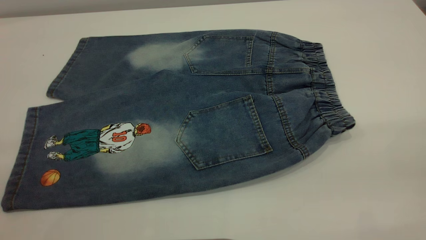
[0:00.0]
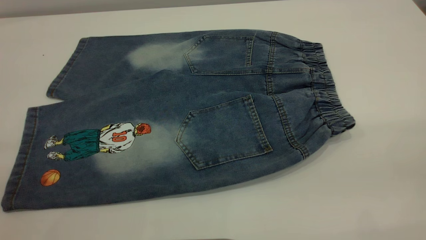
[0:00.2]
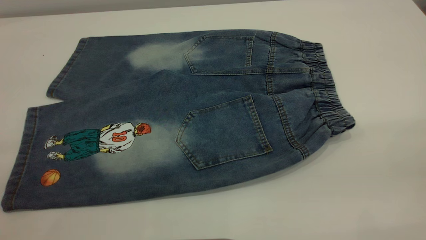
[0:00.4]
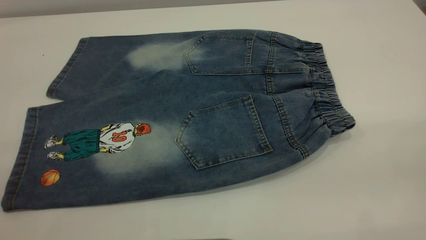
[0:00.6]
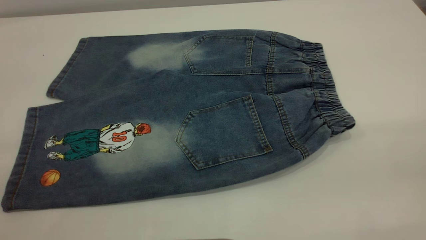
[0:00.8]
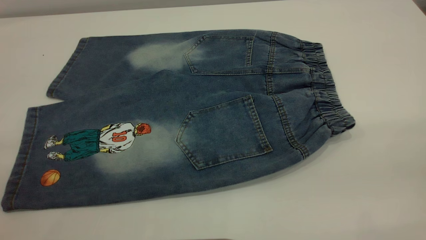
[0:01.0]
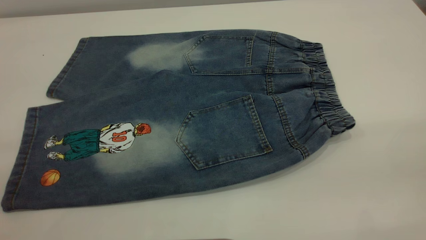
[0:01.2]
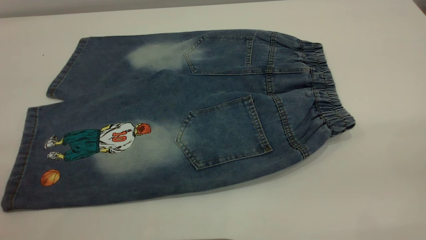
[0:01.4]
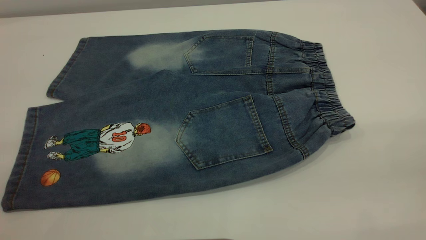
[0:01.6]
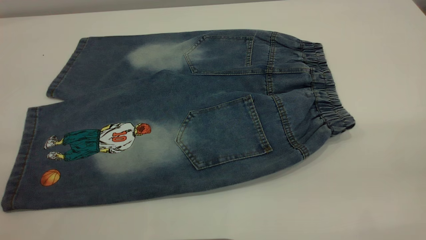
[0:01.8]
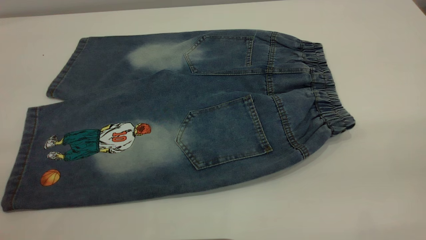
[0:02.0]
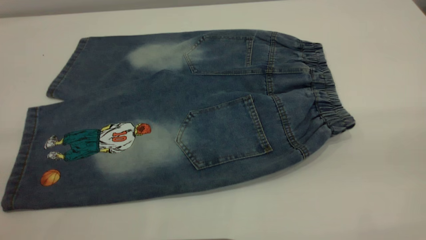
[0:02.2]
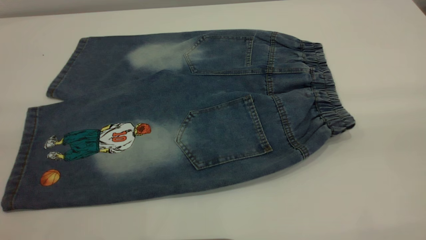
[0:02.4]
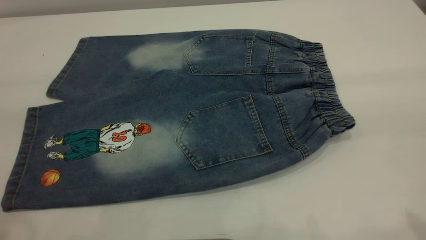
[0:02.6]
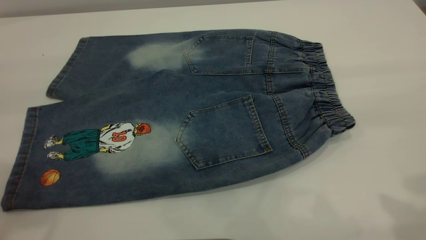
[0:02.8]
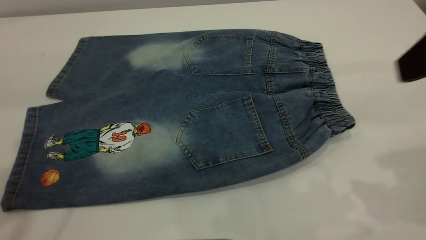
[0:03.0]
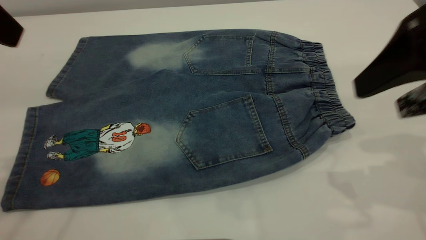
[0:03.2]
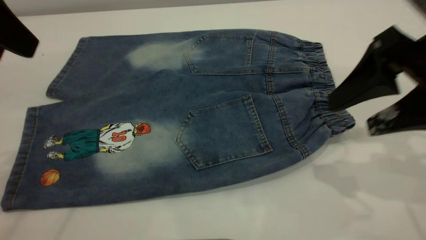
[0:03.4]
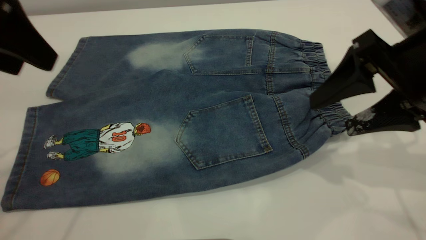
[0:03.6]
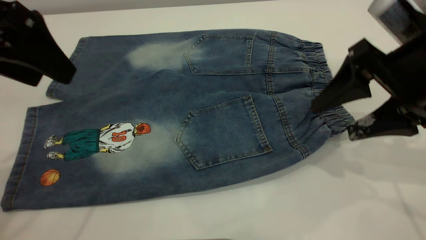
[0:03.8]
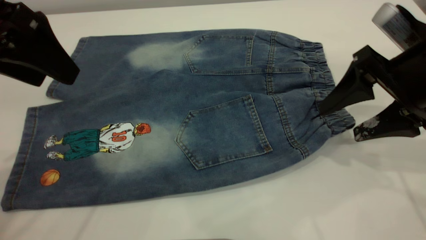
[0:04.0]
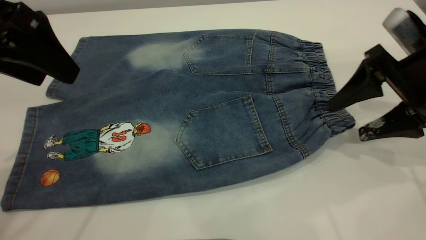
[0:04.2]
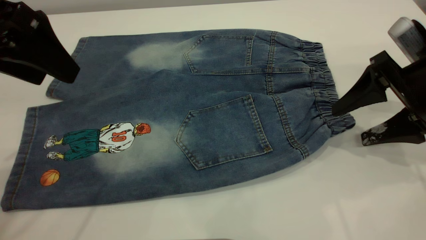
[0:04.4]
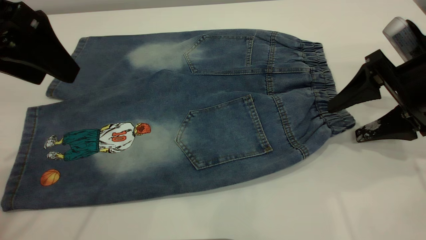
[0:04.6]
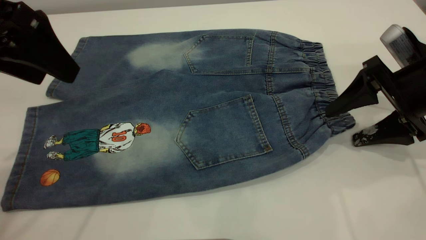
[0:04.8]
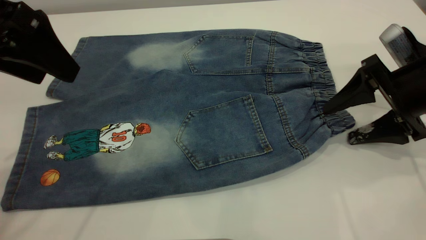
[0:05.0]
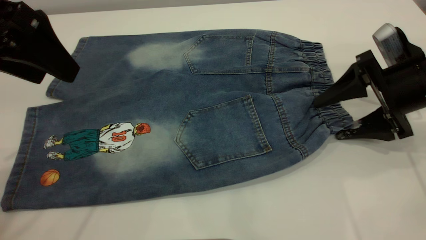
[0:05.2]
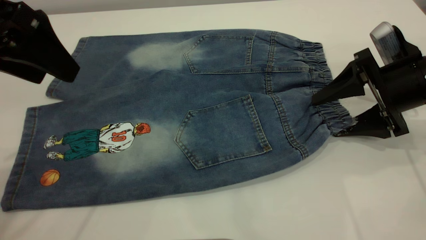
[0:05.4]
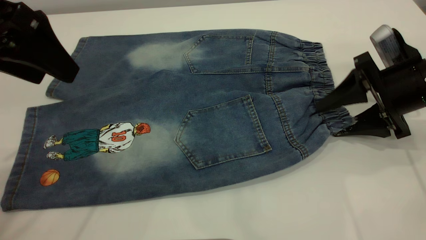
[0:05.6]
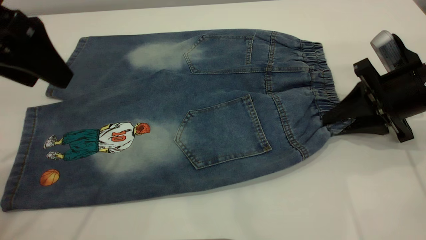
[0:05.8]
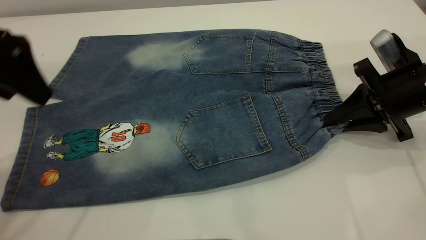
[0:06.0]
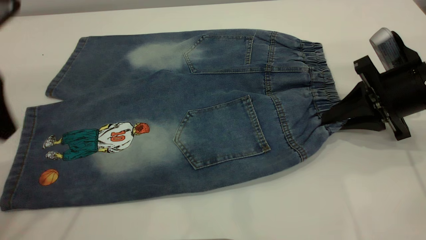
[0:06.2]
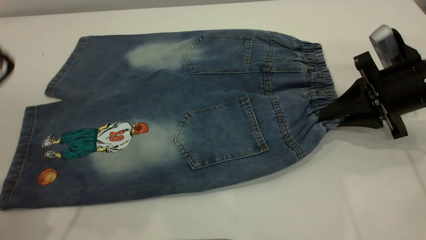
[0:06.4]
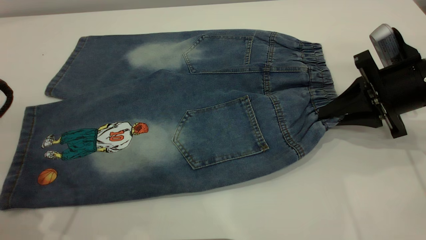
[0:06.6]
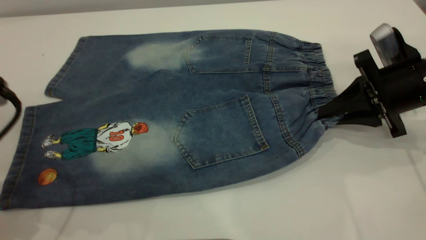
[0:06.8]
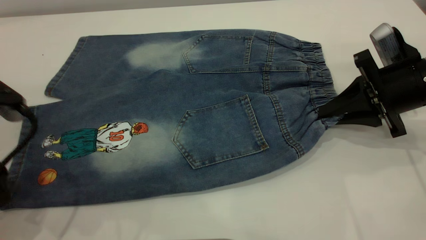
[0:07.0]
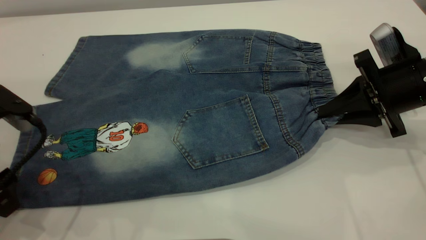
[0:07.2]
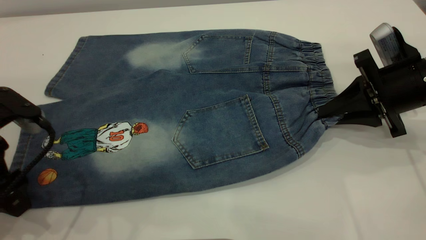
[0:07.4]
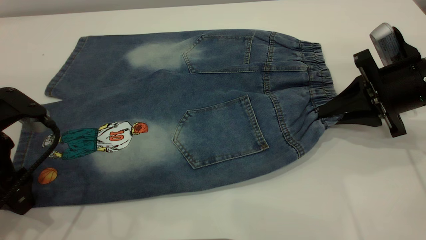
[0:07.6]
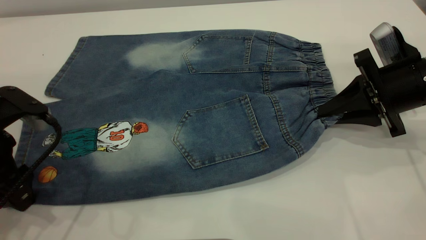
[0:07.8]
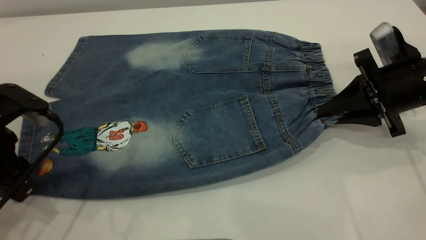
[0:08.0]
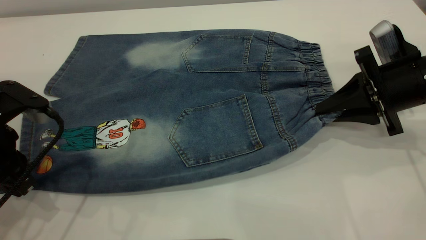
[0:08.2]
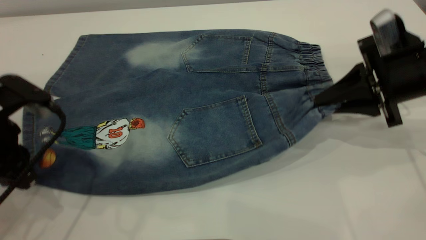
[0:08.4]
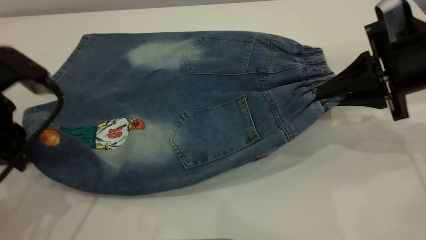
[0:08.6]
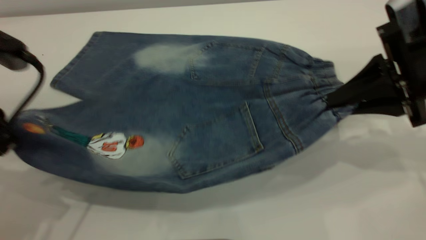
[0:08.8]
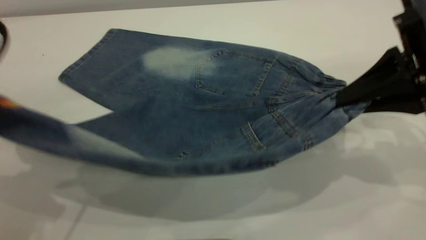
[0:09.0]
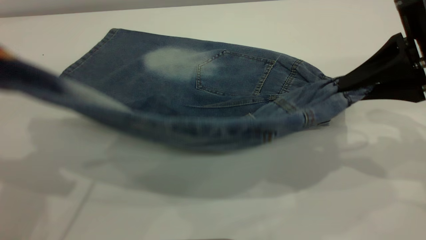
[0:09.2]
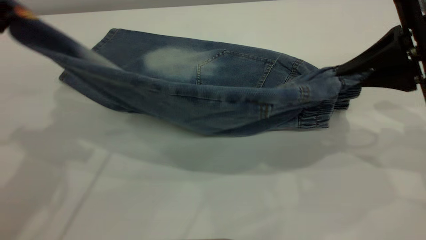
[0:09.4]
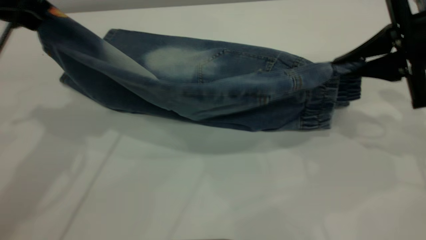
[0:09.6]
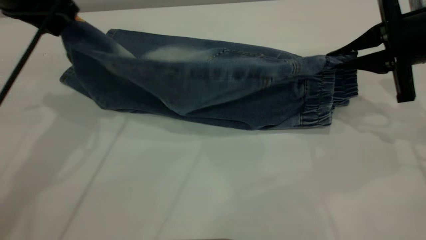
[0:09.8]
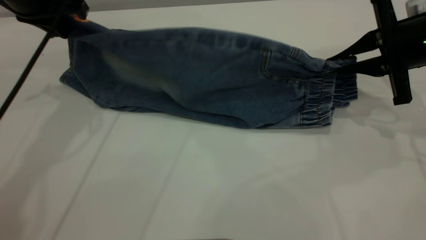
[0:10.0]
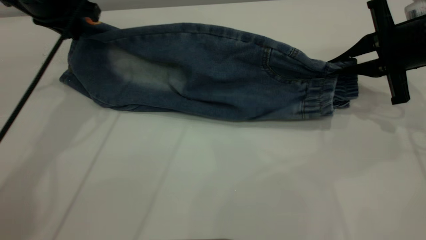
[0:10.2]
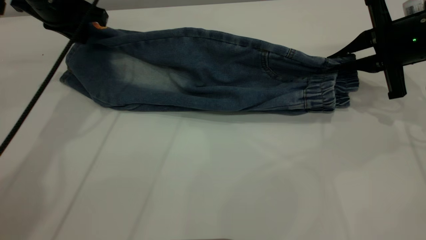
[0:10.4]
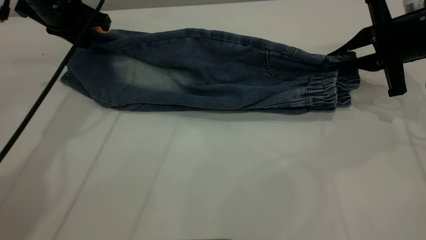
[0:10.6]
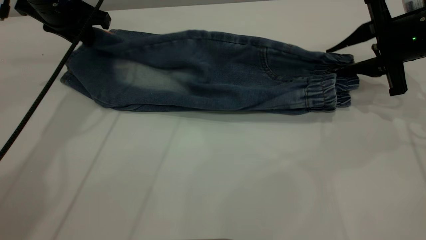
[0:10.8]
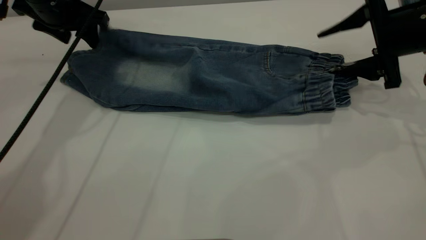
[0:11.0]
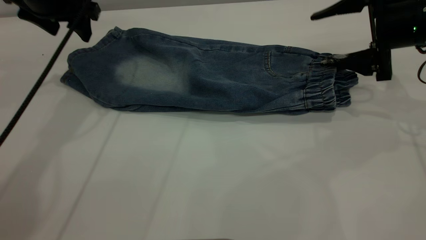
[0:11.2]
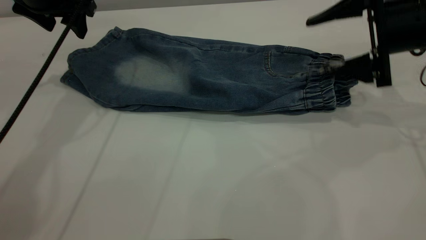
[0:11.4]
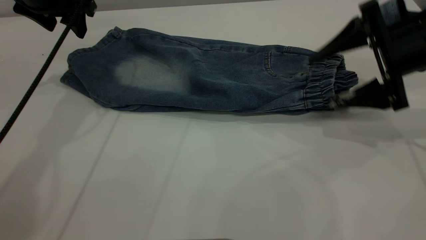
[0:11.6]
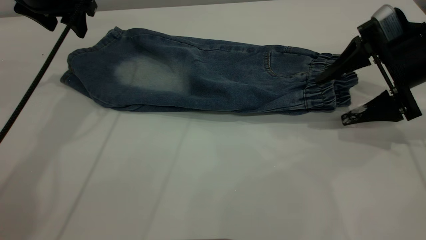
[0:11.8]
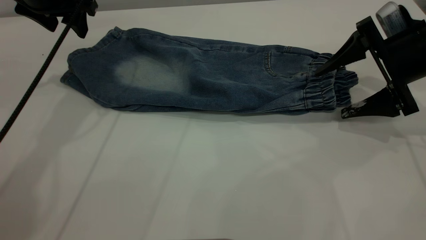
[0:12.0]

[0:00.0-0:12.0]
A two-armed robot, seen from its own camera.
Step, 0:00.0 to 0:11.2: Fold the bottom of the pants upward.
0:00.0 to 0:01.6: Neither gripper changes place.
0:01.6 to 0:03.0: The right gripper is displaced forward by roughly 20 cm.
0:03.0 to 0:04.4: The right gripper is displaced downward and forward by roughly 15 cm; the left gripper heads downward, covering roughly 5 cm.
0:04.4 to 0:06.0: The right gripper closes up.
0:06.0 to 0:07.6: The left gripper travels downward by approximately 15 cm.
0:07.6 to 0:09.0: The left gripper travels upward by about 15 cm, and closes up. Meanwhile the right gripper travels upward and backward by some 10 cm.
0:09.0 to 0:10.4: The left gripper shifts roughly 25 cm forward, while the right gripper heads forward and downward, covering roughly 10 cm.
0:10.4 to 0:12.0: The left gripper opens up; the right gripper opens its fingers.

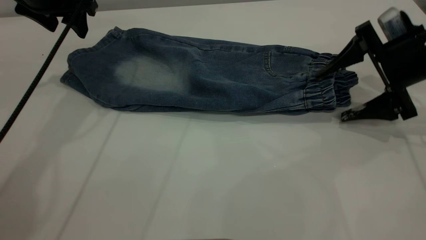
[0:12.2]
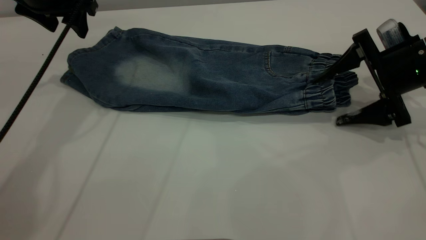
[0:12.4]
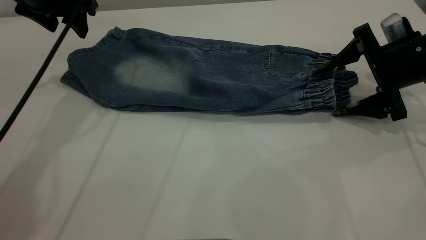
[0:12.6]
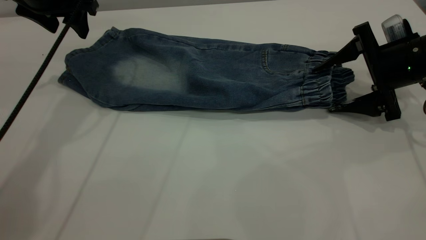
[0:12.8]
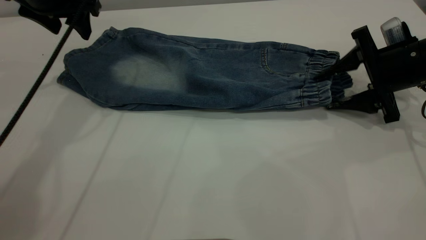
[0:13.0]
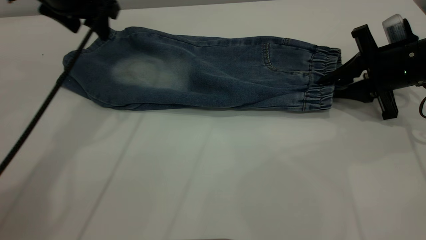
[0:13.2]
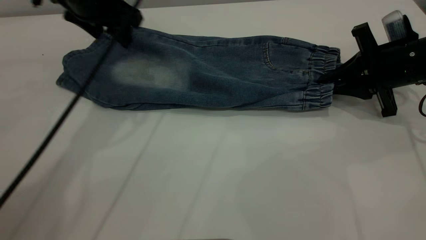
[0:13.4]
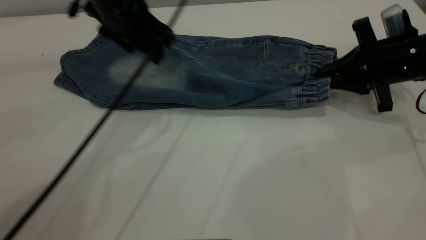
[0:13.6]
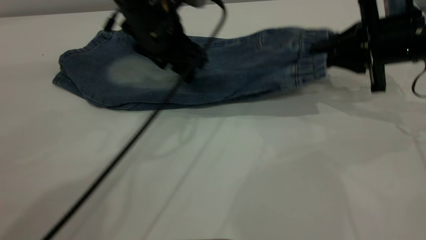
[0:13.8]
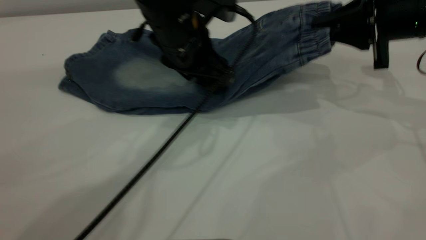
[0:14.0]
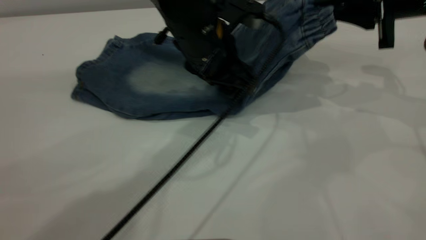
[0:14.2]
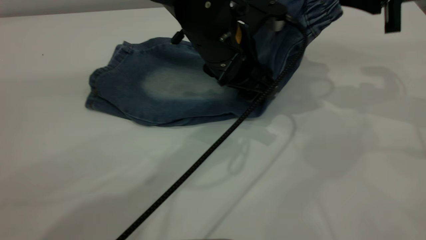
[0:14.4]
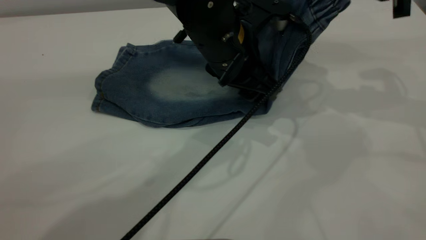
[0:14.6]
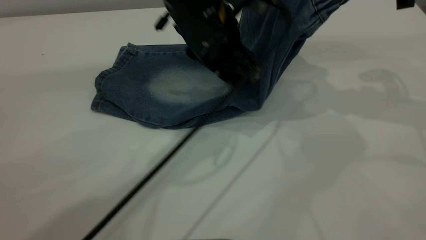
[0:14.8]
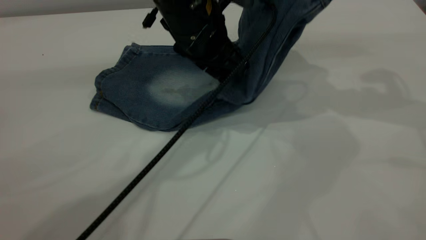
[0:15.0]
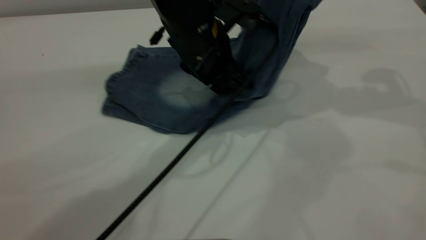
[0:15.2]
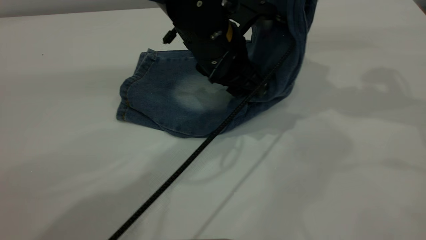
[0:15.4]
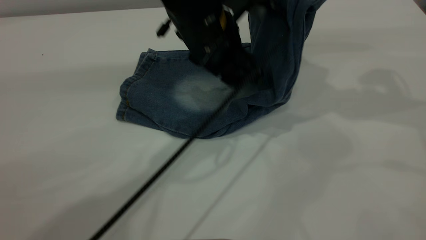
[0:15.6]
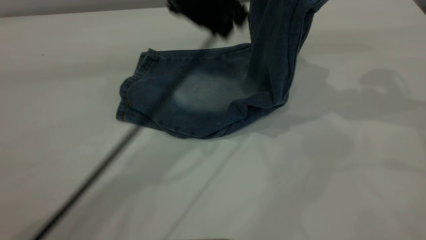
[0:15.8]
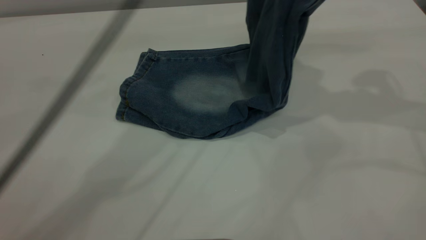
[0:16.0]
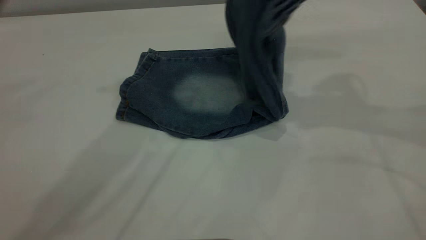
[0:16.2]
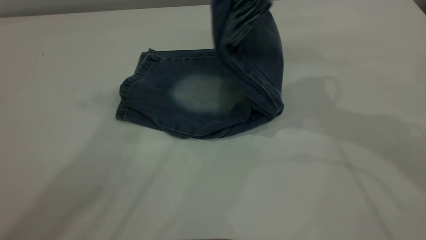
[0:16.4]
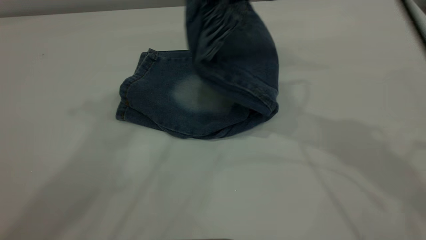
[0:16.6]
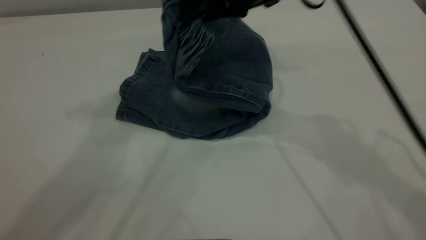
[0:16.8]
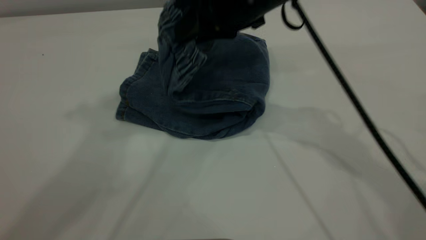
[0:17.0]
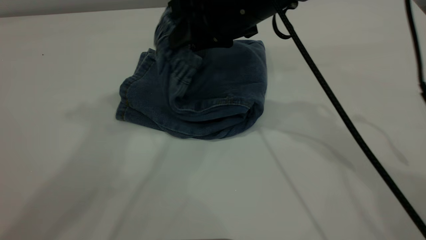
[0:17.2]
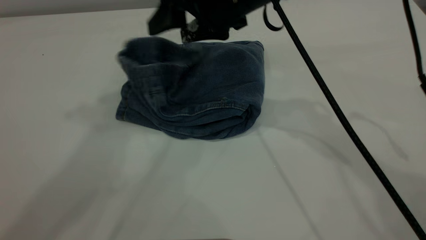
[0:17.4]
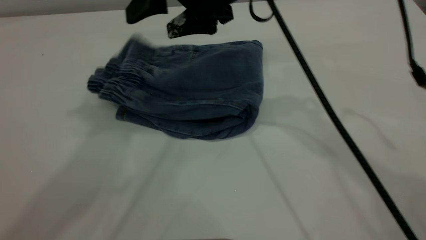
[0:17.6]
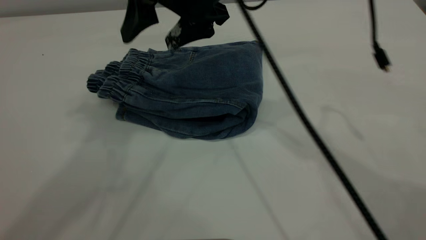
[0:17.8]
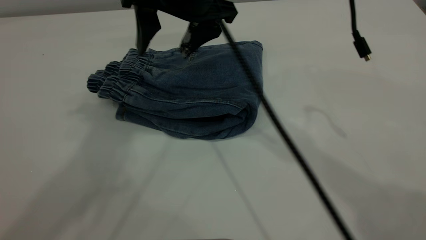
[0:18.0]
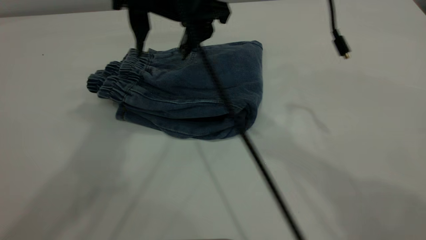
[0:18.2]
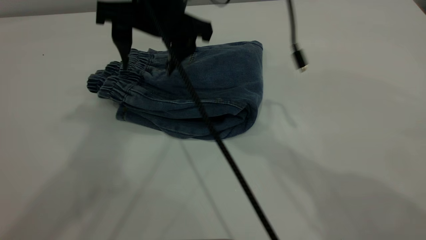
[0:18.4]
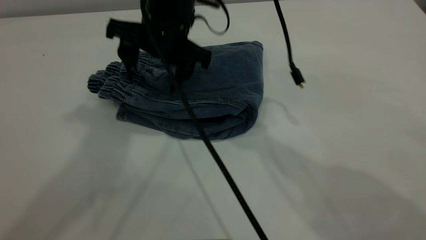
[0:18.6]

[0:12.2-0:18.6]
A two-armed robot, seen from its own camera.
Step, 0:12.2 to 0:17.6: Fold your pants from right to left.
0:12.2 to 0:13.8: The right gripper closes up. Meanwhile the left gripper shifts about 15 cm to the right.
0:13.8 to 0:15.4: The left gripper goes some 5 cm to the right. The right gripper is displaced upward by about 15 cm.
0:15.4 to 0:17.0: The right gripper heads to the left and downward, covering approximately 20 cm, while the left gripper shifts roughly 35 cm upward and to the left.
0:17.0 to 0:18.6: The right gripper is displaced to the left by about 10 cm, and opens its fingers.
